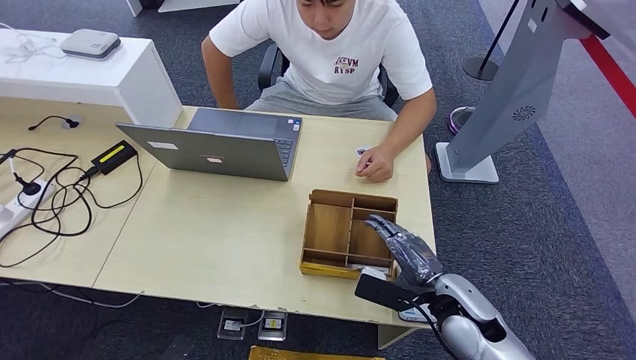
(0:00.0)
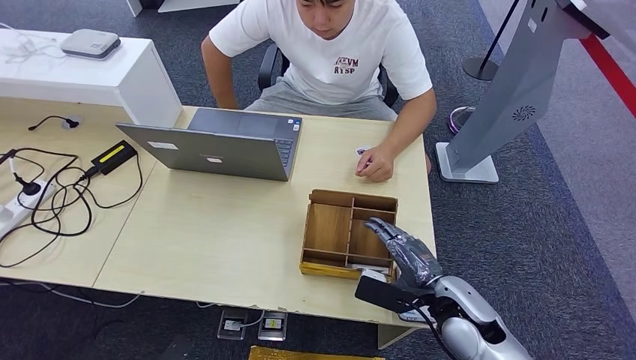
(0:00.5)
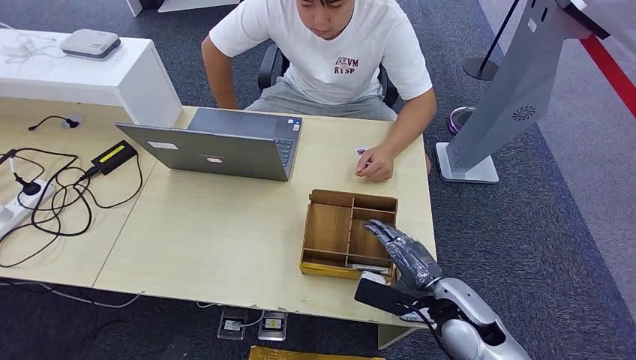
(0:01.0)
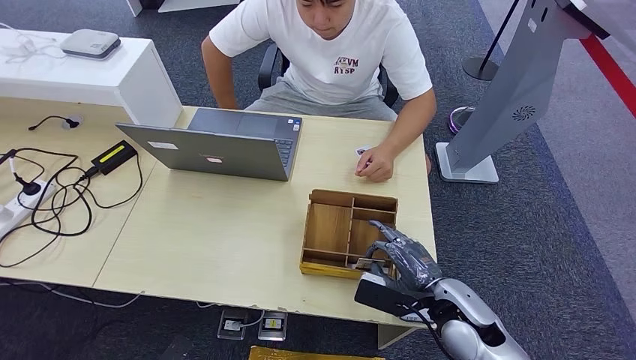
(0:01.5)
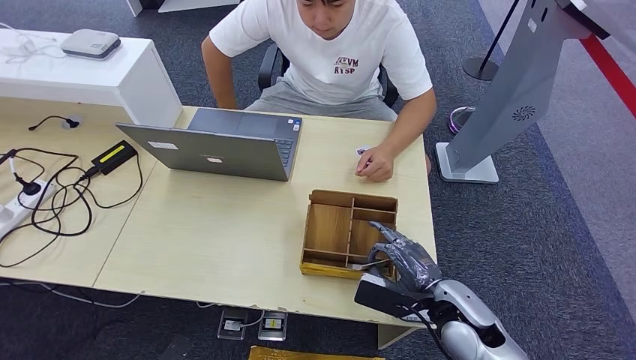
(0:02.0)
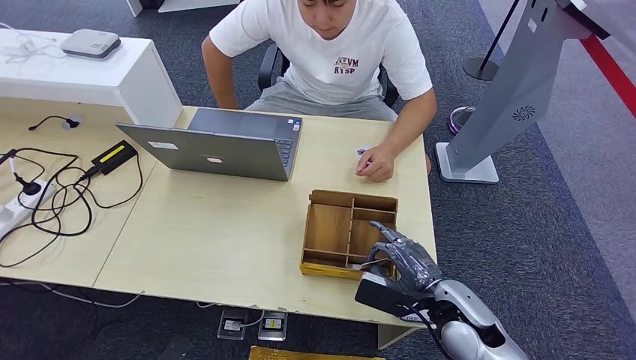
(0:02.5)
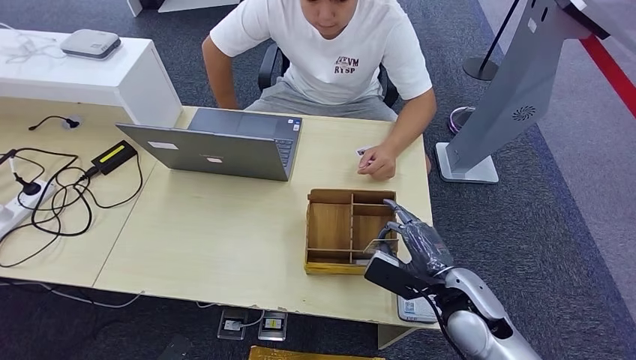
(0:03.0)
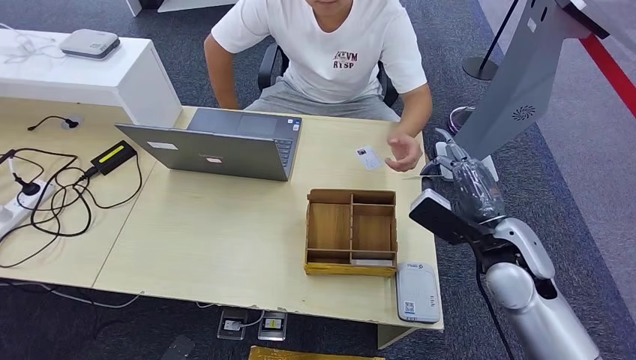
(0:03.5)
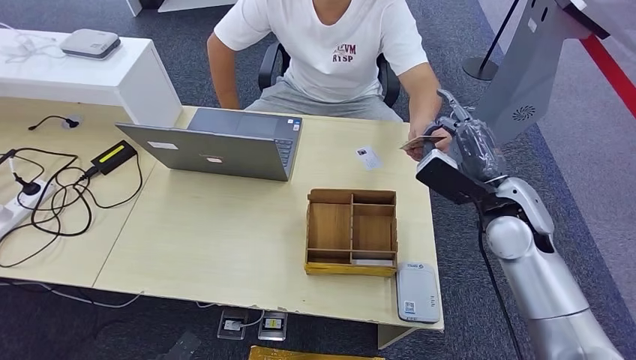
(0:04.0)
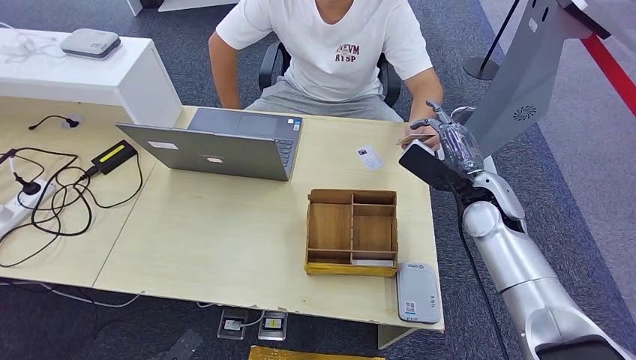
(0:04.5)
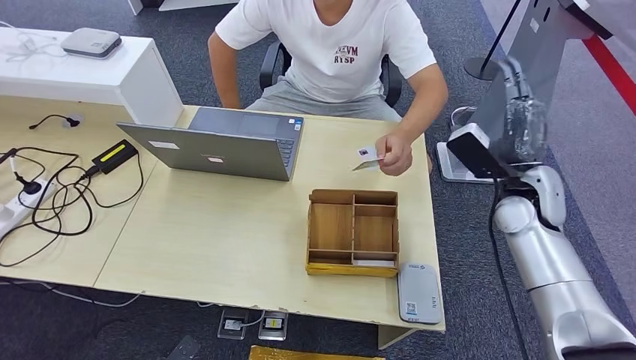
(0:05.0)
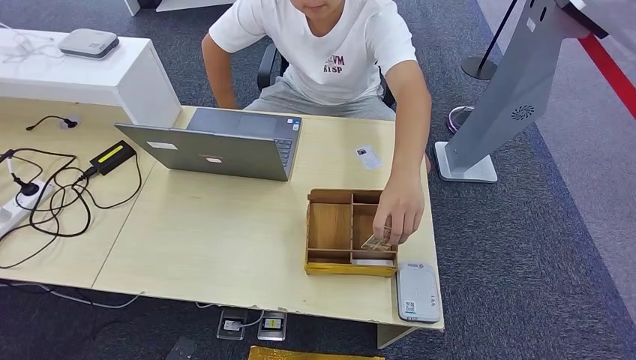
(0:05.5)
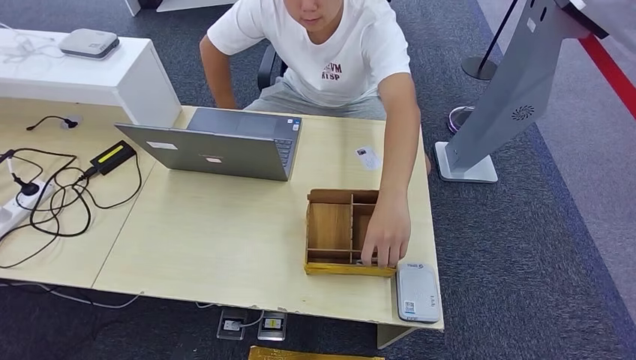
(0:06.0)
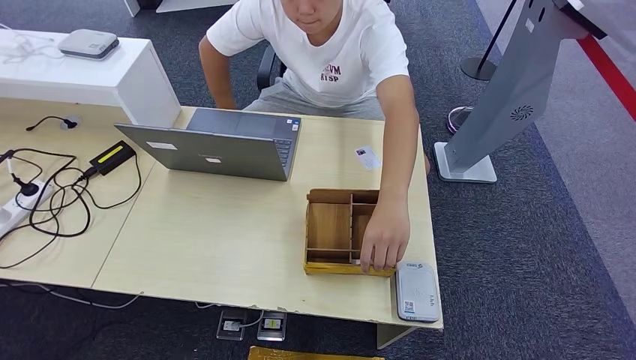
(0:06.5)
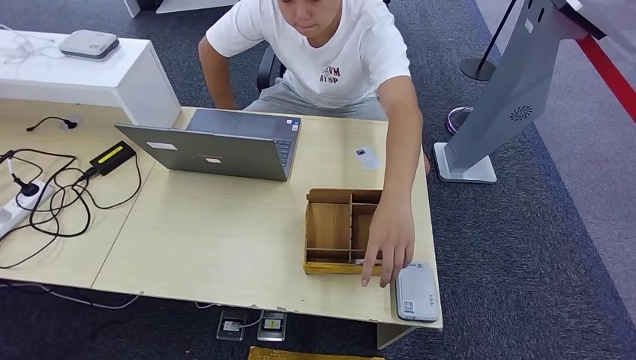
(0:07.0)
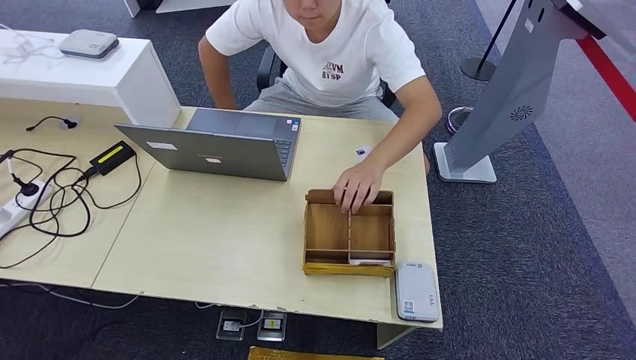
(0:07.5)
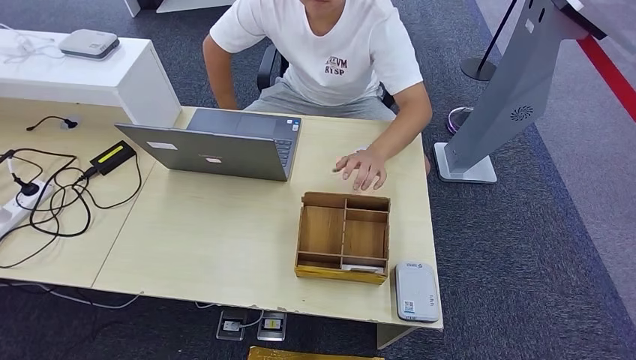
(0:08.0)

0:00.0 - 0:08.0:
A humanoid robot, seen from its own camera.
Step, 0:00.0 - 0:03.0: Pick up the room key from the key card box.
Step, 0:04.0 - 0:08.0: Hand the room key to the person.
0:00.0 - 0:02.0: Both hands stay about where they are.
0:02.0 - 0:04.0: The right hand goes about 20 cm upward and forward.
0:04.0 - 0:06.0: The right hand goes some 40 cm to the right and backward. The left hand is displaced to the right by about 5 cm.
0:06.0 - 0:08.0: The left hand is displaced to the left by some 5 cm. The right hand travels downward, to the left and backward by some 35 cm.

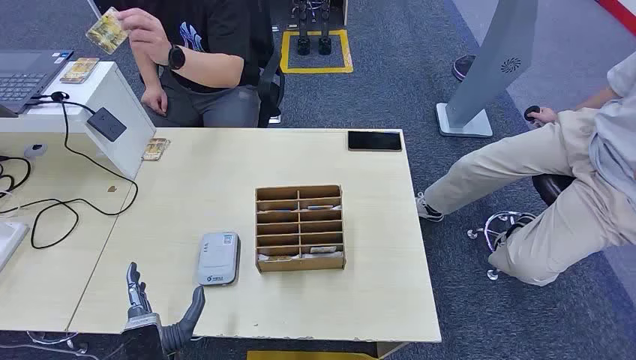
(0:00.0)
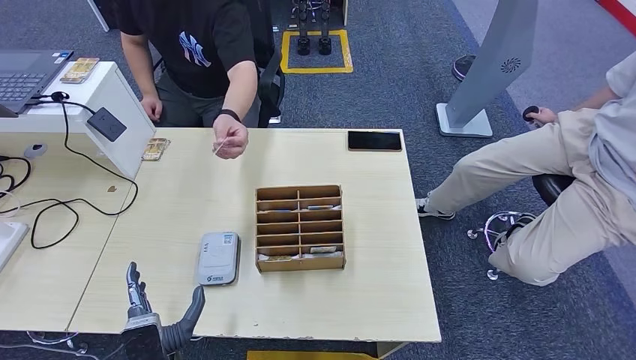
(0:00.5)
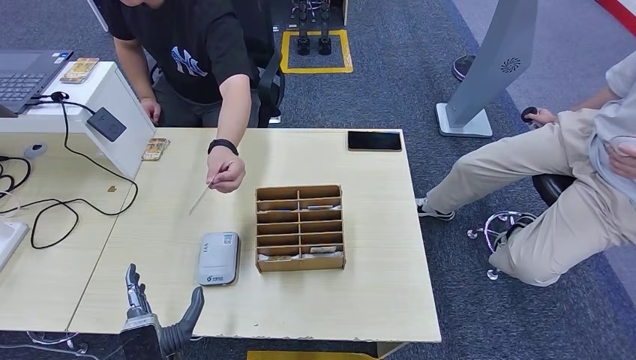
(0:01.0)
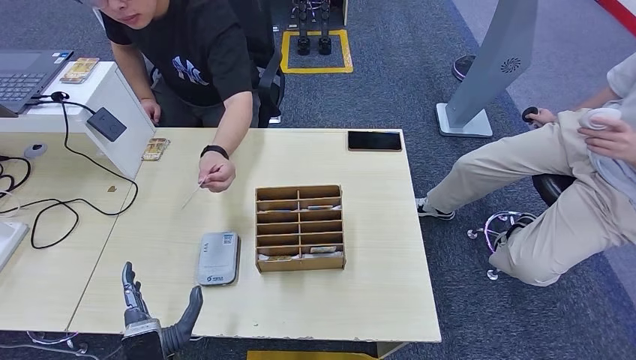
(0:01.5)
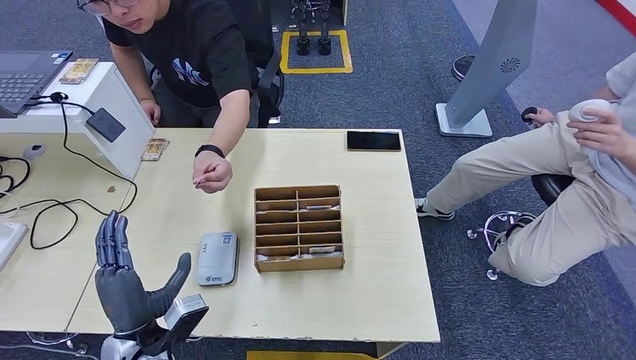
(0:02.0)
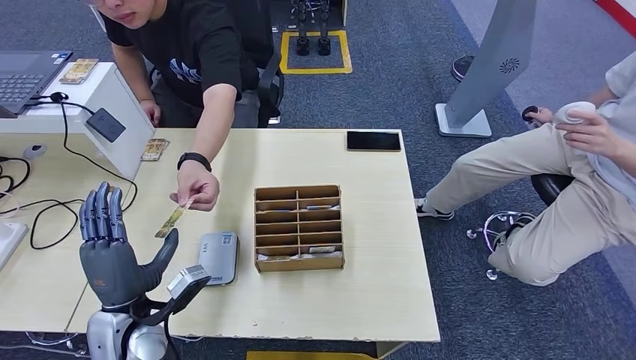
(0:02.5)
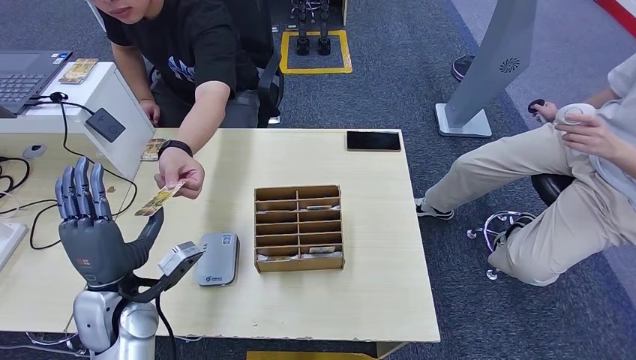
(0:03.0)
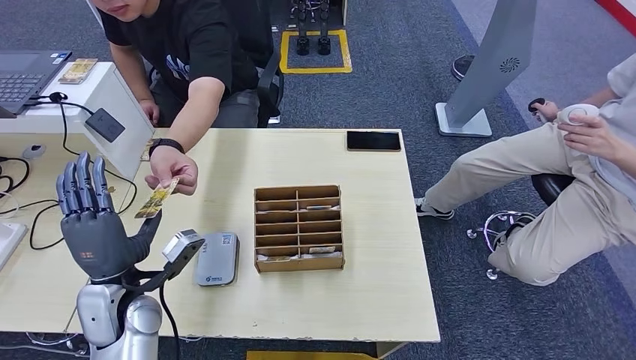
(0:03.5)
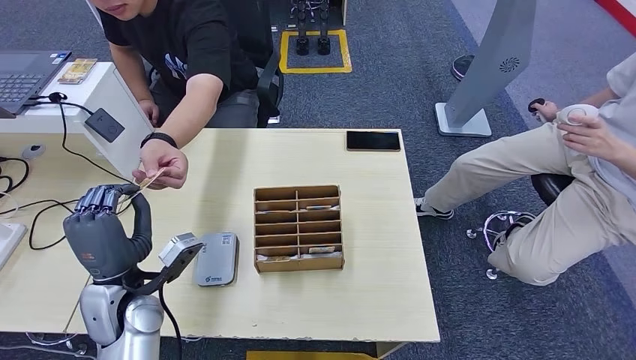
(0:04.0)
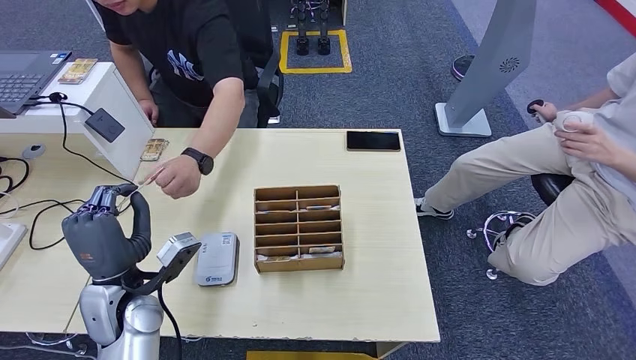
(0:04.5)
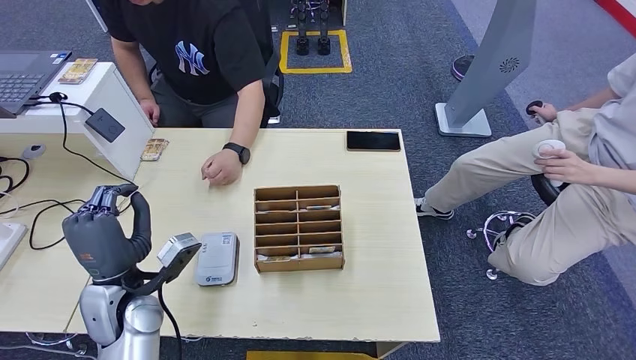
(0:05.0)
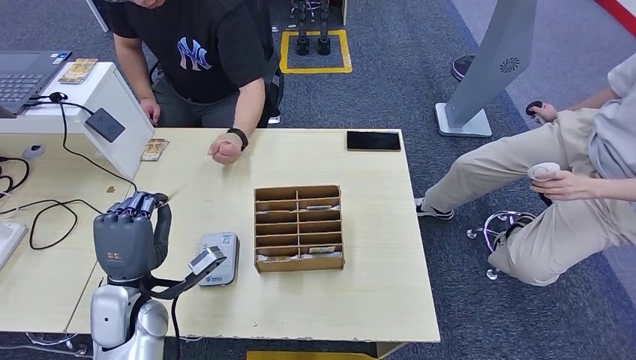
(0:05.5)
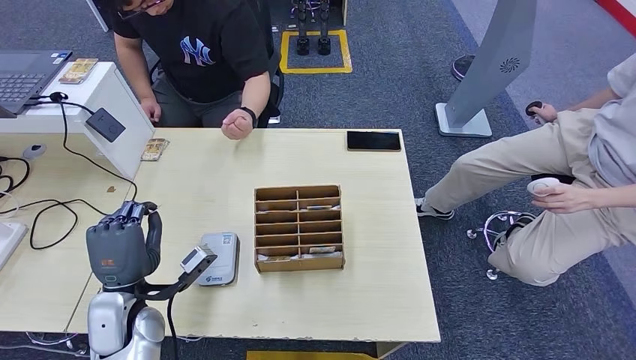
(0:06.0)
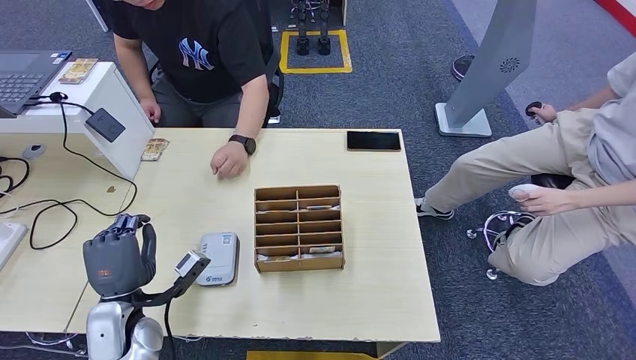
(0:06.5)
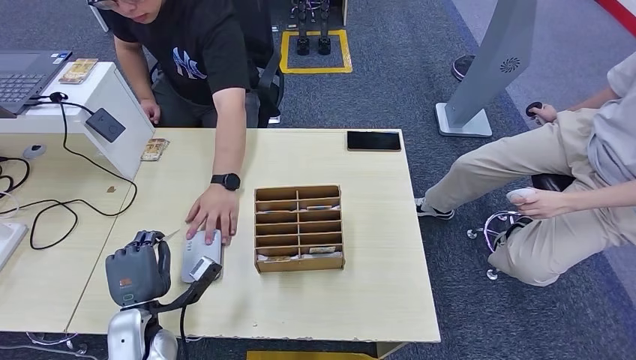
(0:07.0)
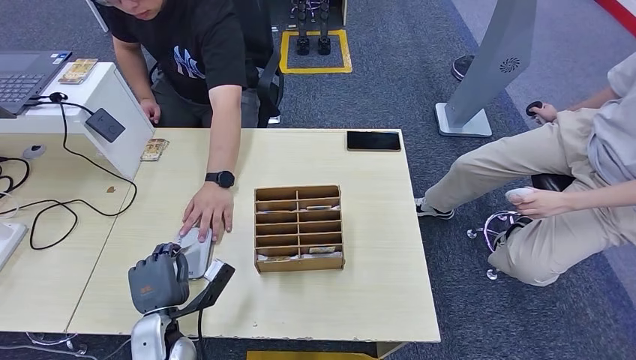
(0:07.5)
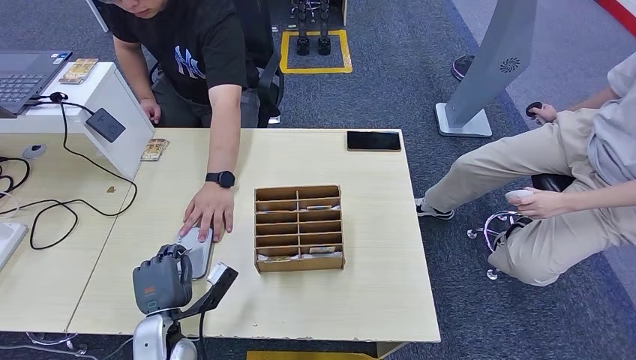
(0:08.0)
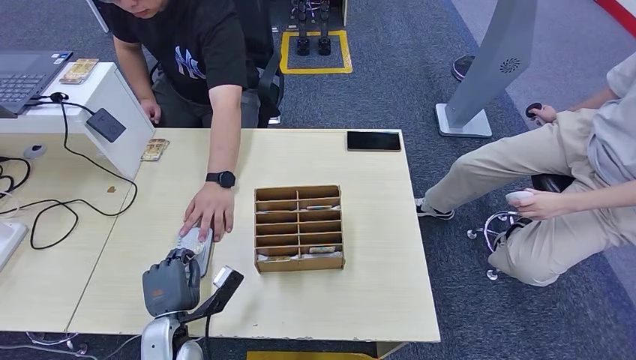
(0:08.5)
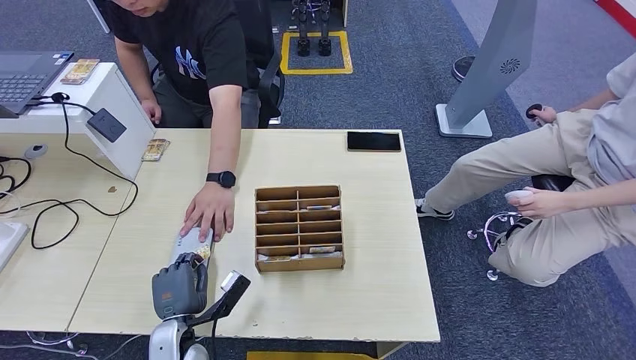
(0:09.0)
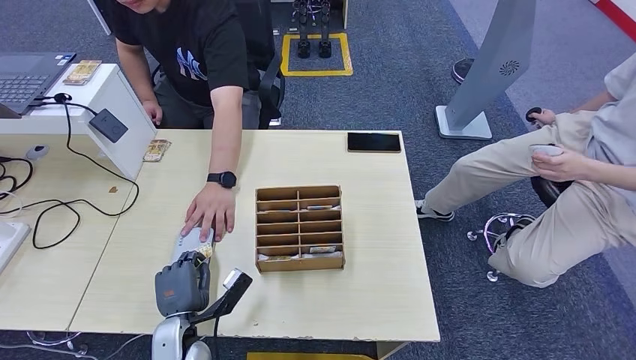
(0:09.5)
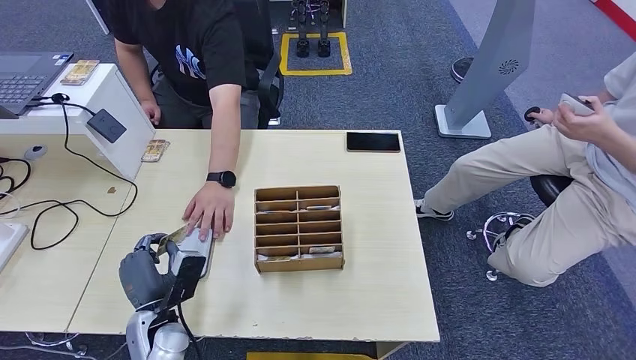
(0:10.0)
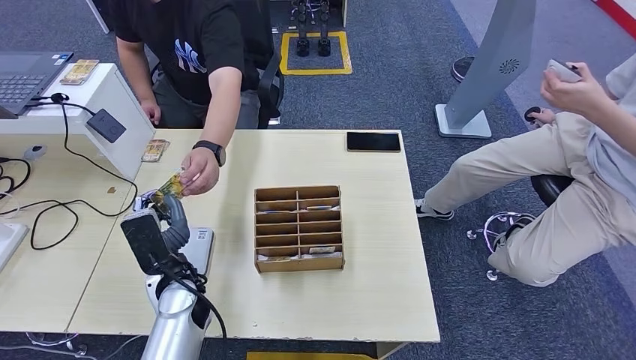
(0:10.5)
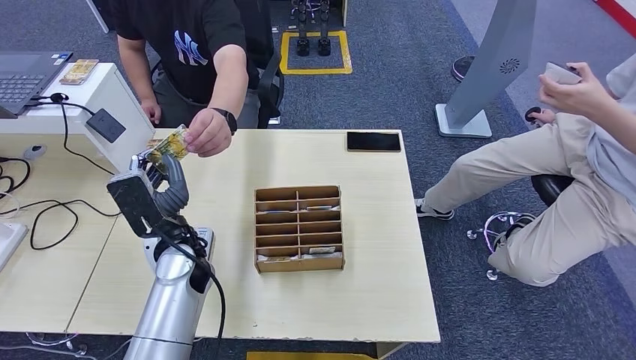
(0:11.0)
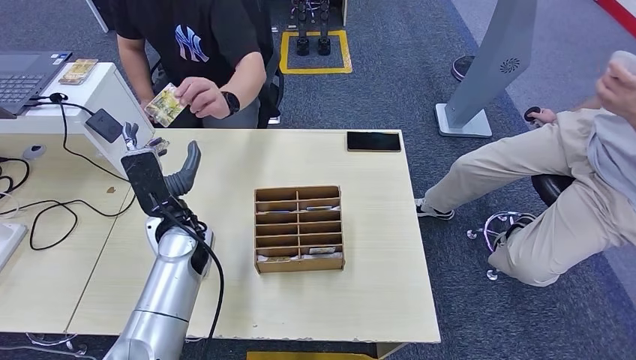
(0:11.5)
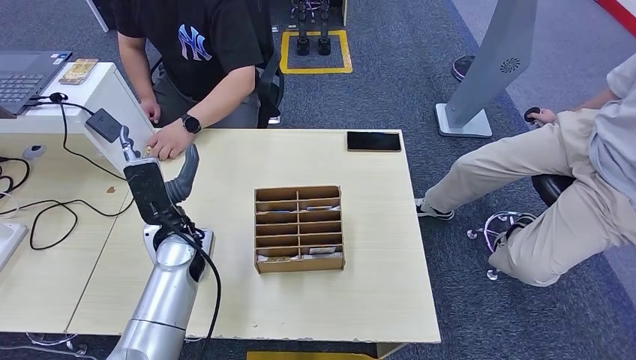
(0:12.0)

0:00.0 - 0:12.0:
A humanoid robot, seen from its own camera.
Step, 0:00.0 - 0:04.0: Take the ID card from the person's hand.
Step, 0:04.5 - 0:07.5: Place the ID card on the card reader.
Step, 0:08.0 - 0:10.5: Hand the ID card to the person.
0:02.0 - 0:04.0: The left hand shifts some 10 cm forward and upward.
0:04.0 - 0:06.0: The hands move only a little.
0:06.0 - 0:08.0: The left hand goes some 10 cm downward.
0:10.0 - 0:12.0: The left hand shifts roughly 15 cm upward and forward.
